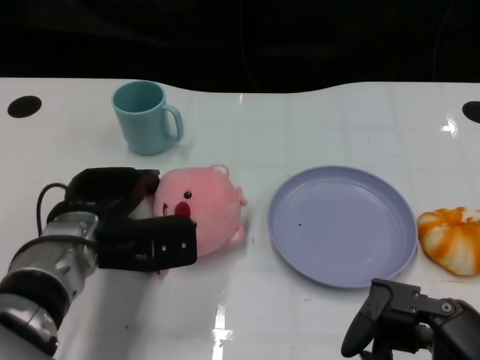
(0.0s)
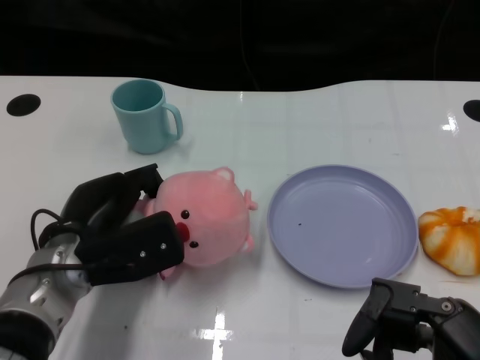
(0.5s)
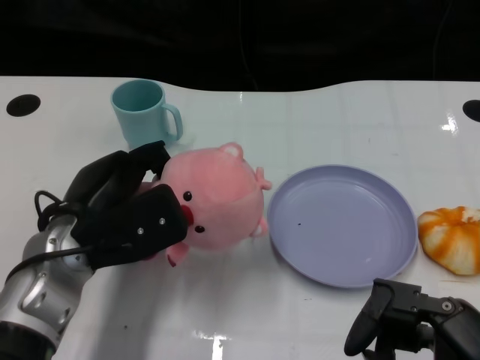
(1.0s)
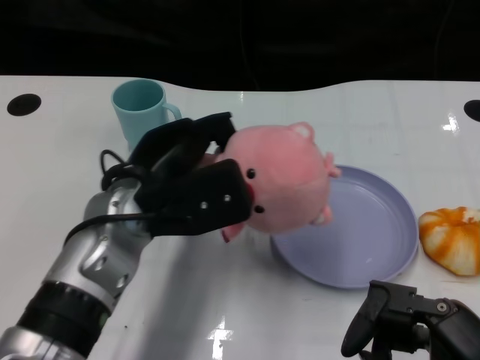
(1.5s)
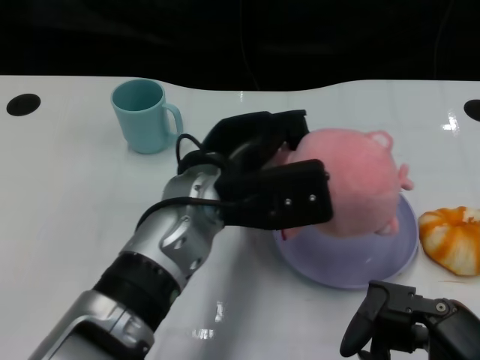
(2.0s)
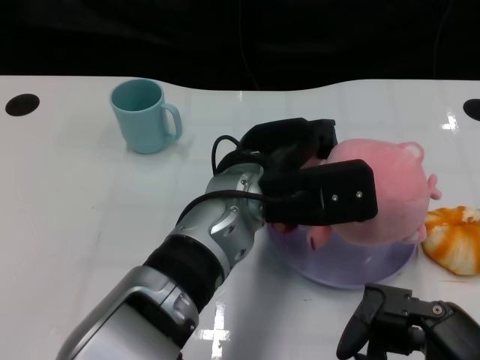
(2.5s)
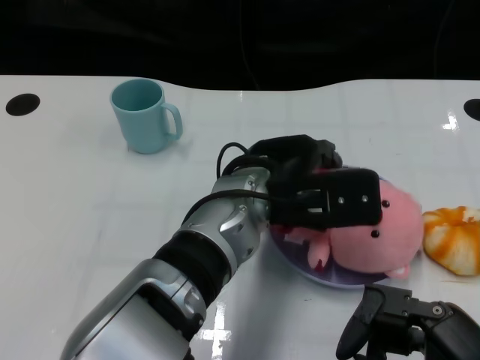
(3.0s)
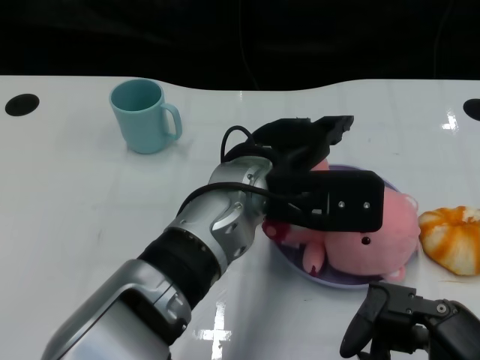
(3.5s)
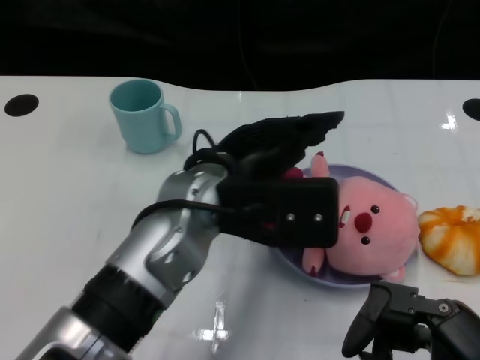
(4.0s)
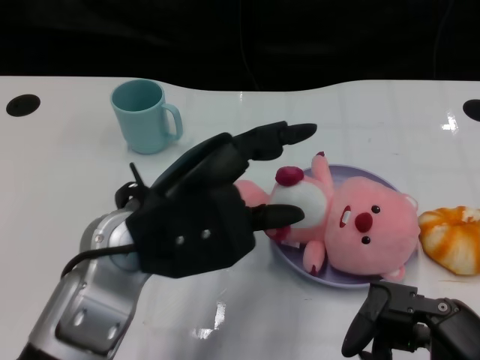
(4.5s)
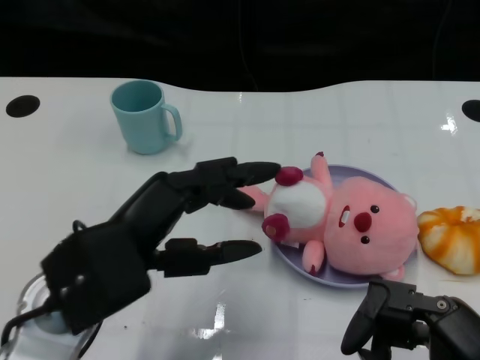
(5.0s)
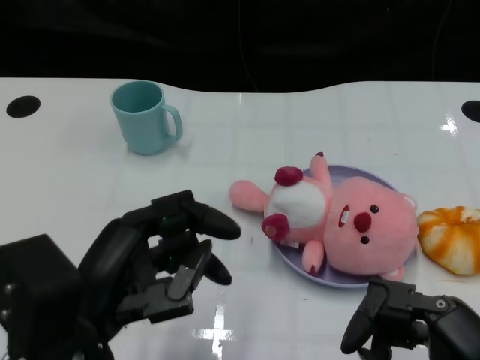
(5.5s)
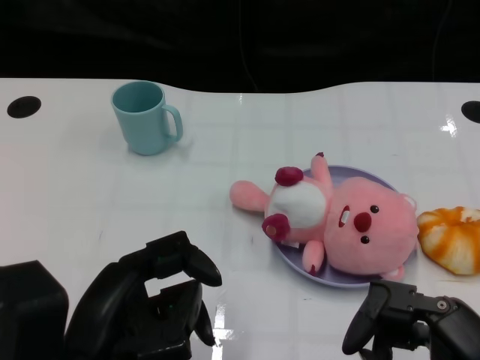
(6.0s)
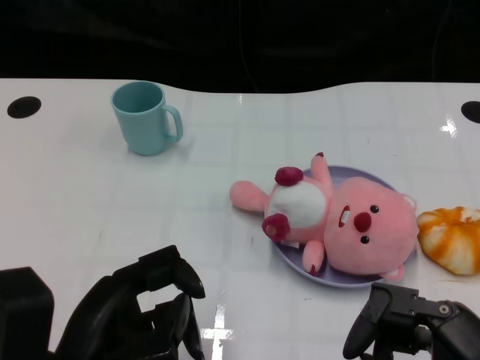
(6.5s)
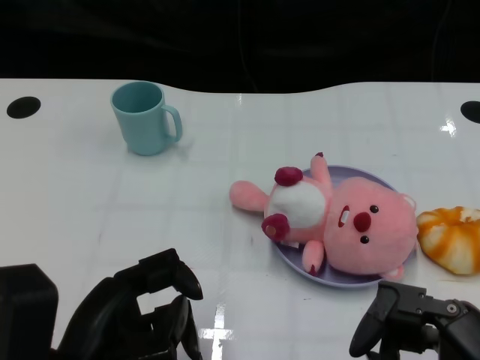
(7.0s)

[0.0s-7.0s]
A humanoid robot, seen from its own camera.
Task of the whole recording: Pick up the doll on one side of the plate and place it into the plate.
Step, 0.5s to 3.5s: Place the pink doll into the plate with the left gripper.
0.0s to 2.0s: The left hand moves to the right and upward, roughly 15 cm.
3.5s to 5.0s: The left hand travels to the left and backward by approximately 20 cm.
5.0s to 7.0s: The left hand heads backward and downward, covering approximately 10 cm.

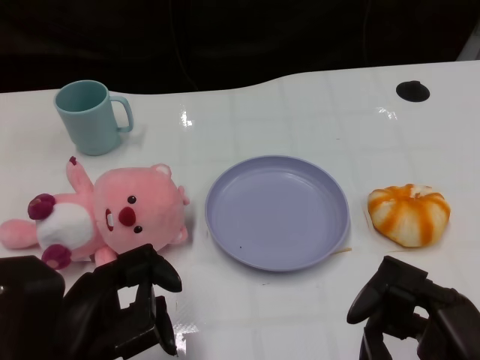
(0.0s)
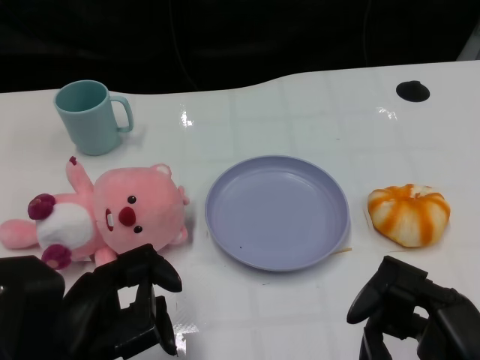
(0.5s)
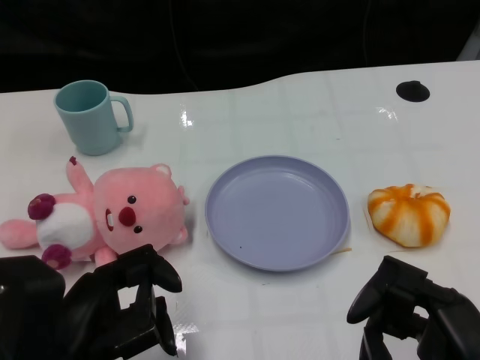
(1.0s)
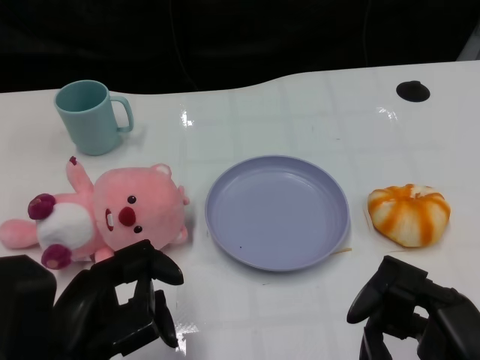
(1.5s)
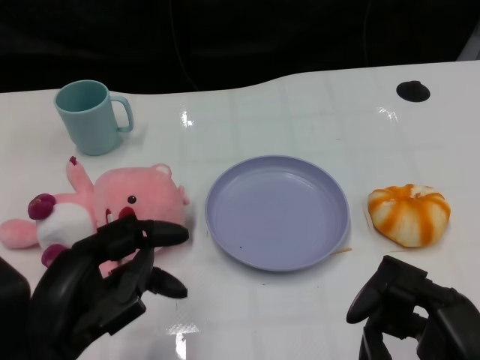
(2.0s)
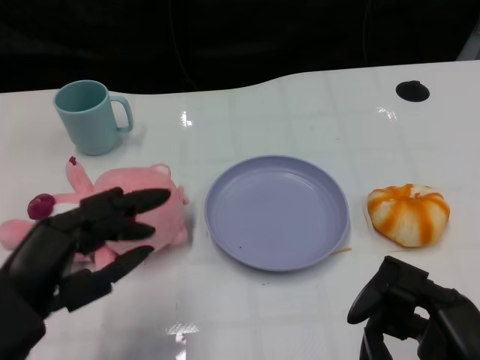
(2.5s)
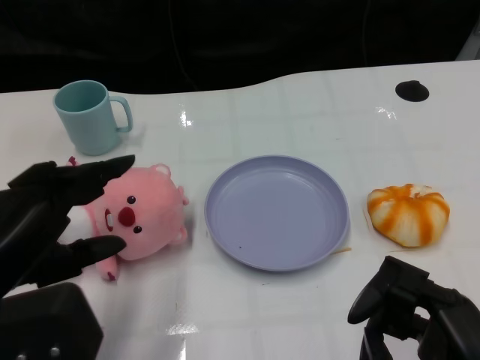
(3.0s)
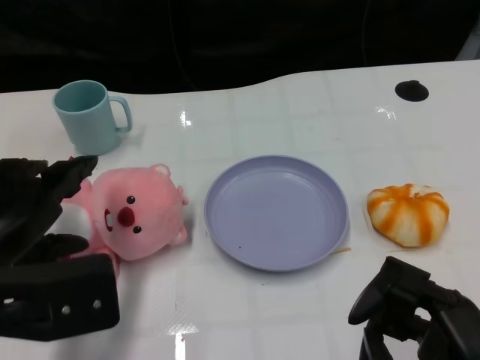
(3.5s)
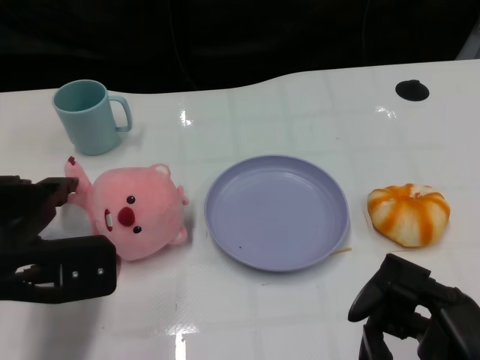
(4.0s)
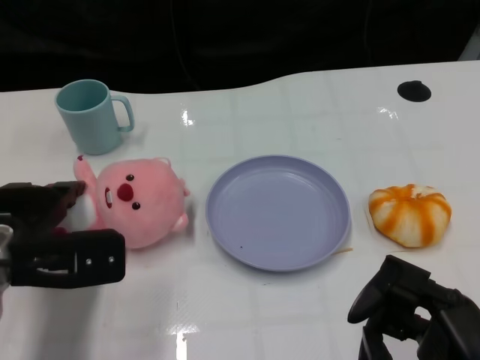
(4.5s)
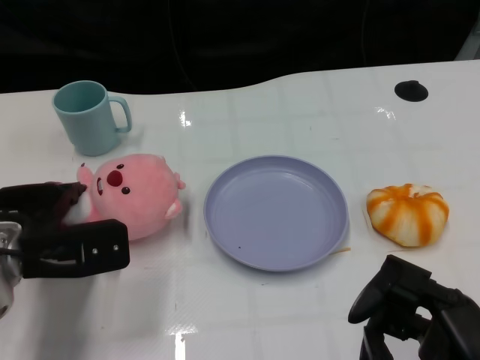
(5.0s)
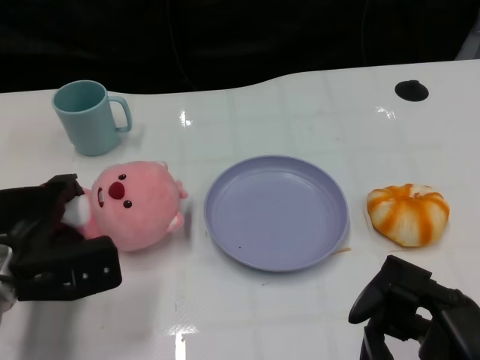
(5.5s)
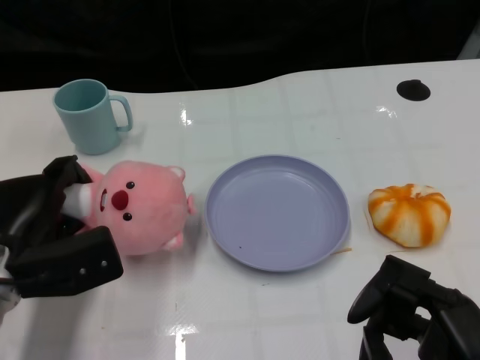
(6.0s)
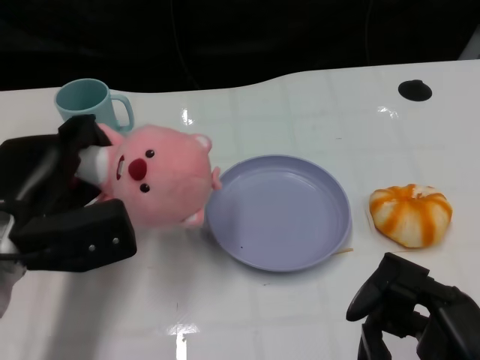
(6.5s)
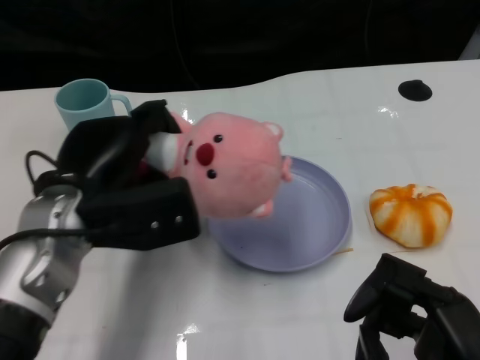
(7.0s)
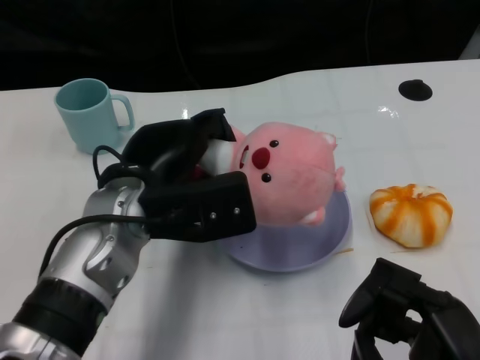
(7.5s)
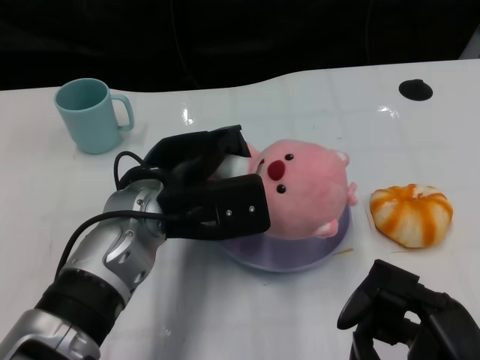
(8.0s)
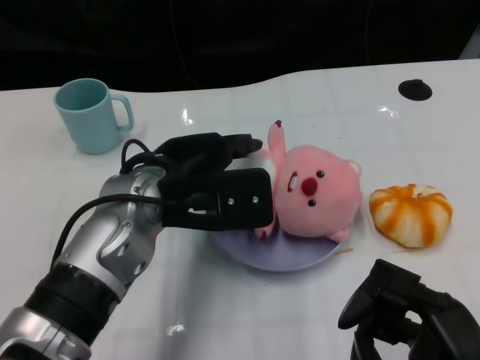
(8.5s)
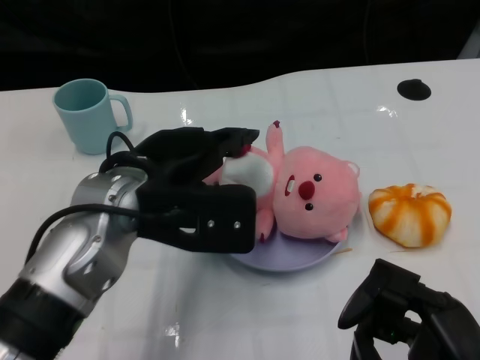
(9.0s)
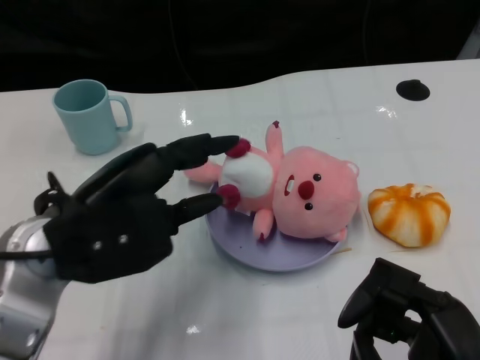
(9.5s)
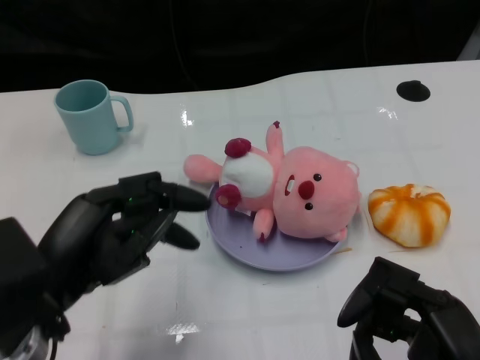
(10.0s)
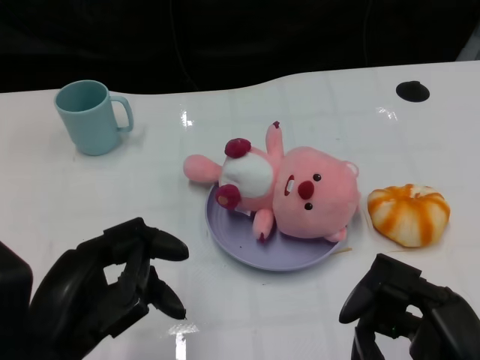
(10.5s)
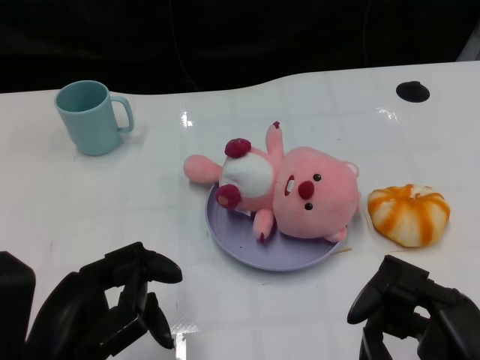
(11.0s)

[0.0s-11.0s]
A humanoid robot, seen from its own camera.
Task of the whole recording: Pick up the doll on one side of the plate and place it into the plate.
Step, 1.5s to 5.5s: Grasp the pink doll with the left gripper.
Step, 6.5s to 8.5s: Place the pink doll into the plate with the left gripper.
2.0s to 3.5s: The left hand heads upward, covering some 5 cm.
3.5s to 5.5s: The left hand heads downward and forward, covering roughly 15 cm.
5.5s to 7.5s: The left hand shifts approximately 15 cm to the right and upward.
7.5s to 9.0s: The hands move only a little.
9.0s to 11.0s: The left hand heads backward and to the left, covering roughly 15 cm.

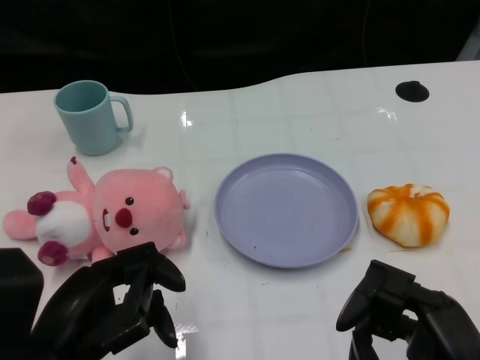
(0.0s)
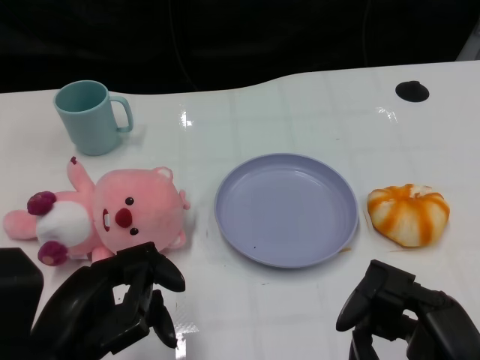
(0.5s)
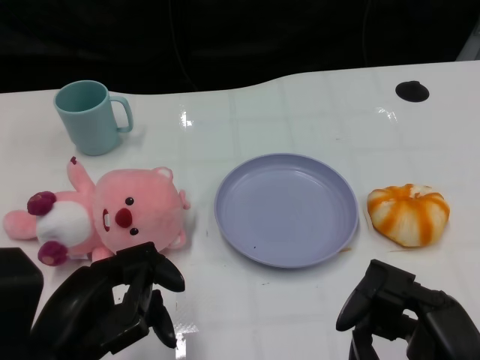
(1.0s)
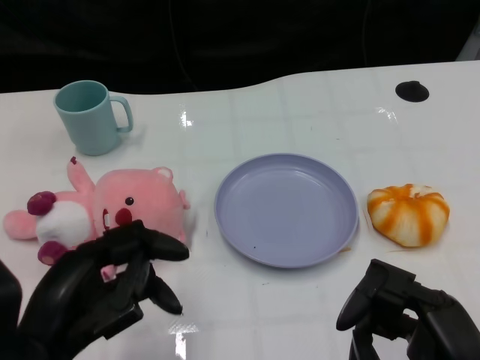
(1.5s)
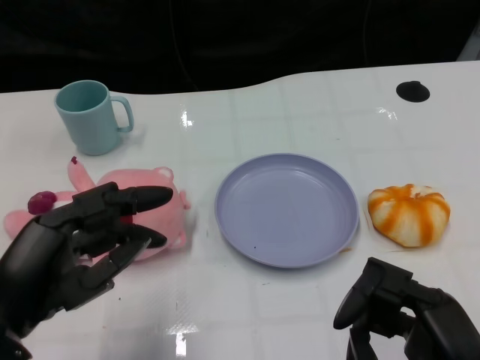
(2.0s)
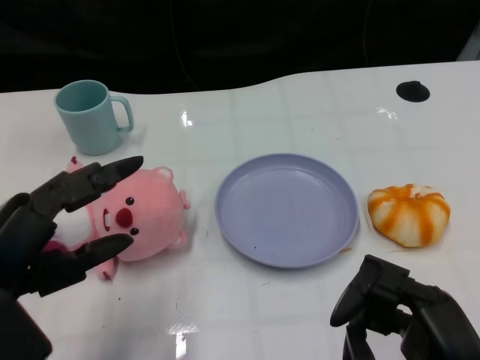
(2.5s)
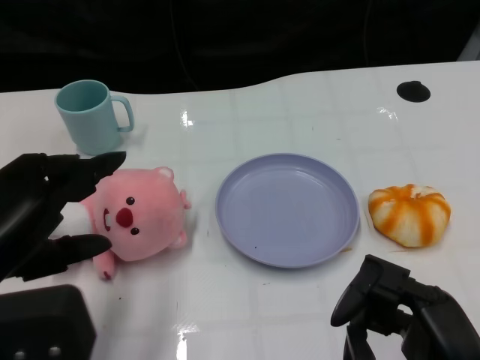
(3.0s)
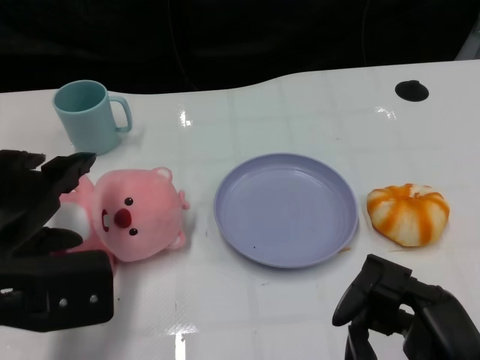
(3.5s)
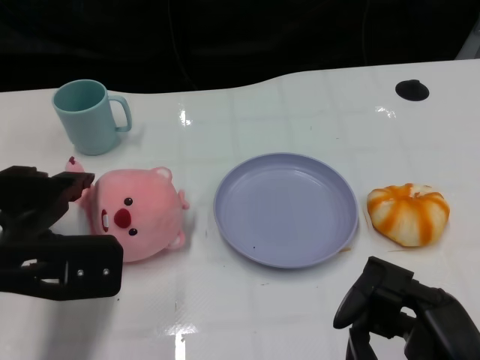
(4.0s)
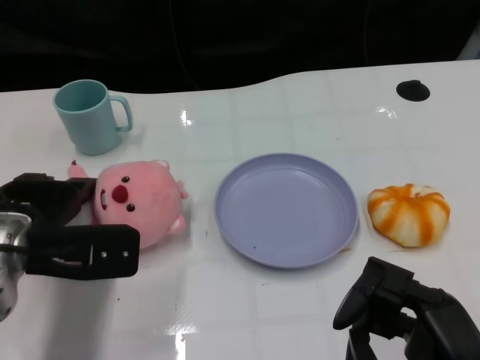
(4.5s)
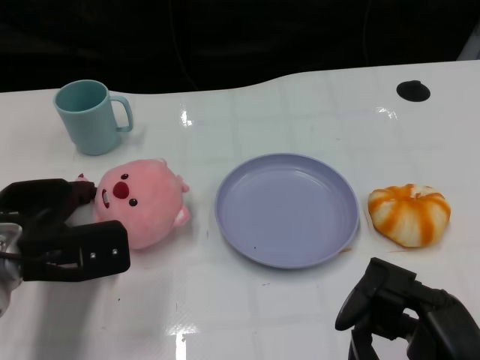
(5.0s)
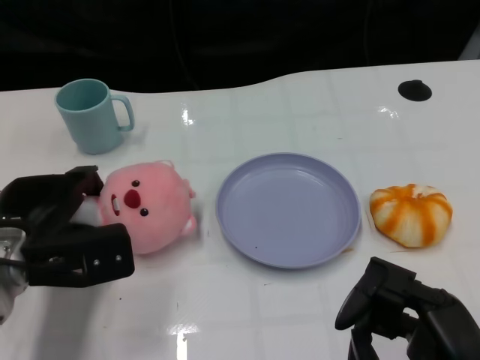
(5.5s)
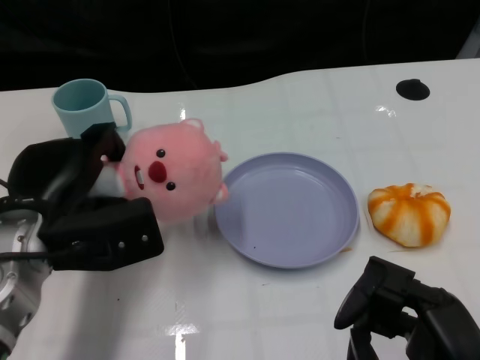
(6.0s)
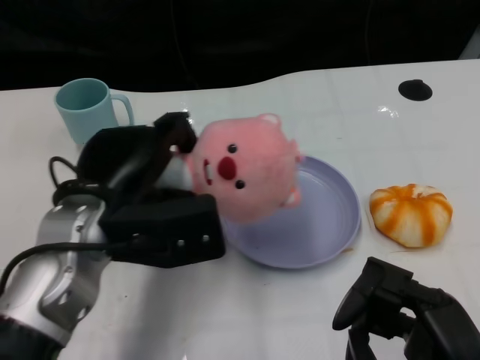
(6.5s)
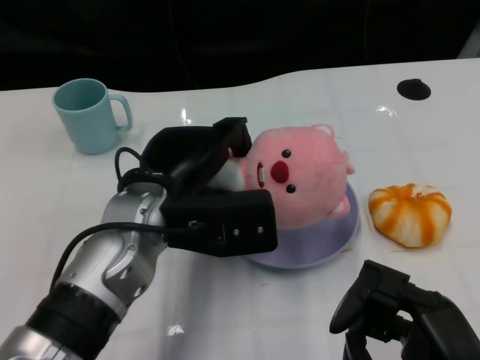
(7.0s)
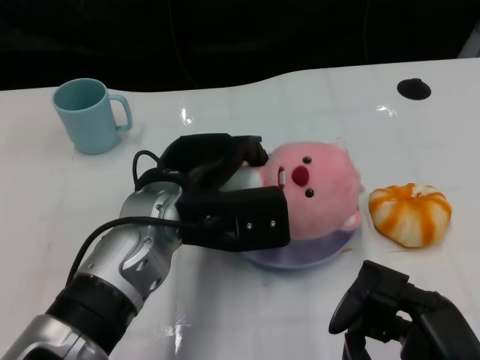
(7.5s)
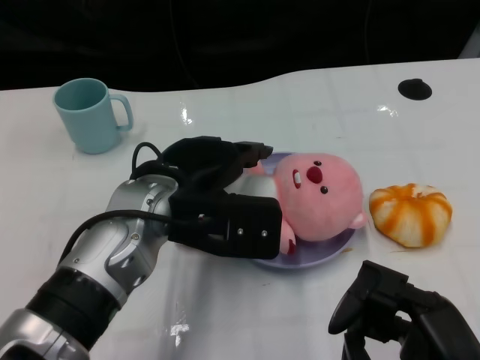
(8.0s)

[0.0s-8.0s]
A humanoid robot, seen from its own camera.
Task of the whole recording: Pick up the doll on one side of the plate and place it into the plate.
Step, 1.5s to 5.5s: Grasp the pink doll with the left gripper.
2.0s to 4.0s: The left hand goes some 10 cm forward.
6.0s to 8.0s: The left hand heads to the right, covering some 10 cm.
